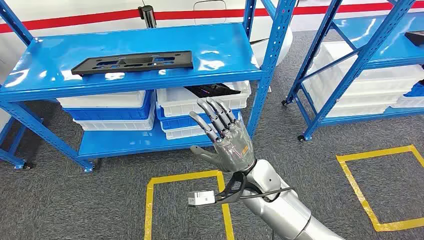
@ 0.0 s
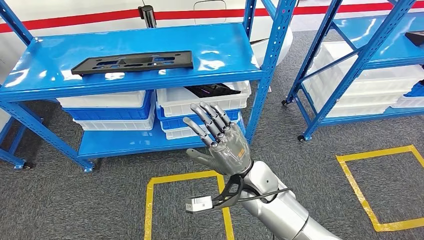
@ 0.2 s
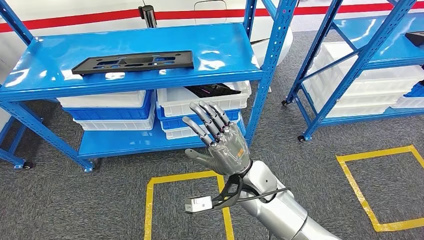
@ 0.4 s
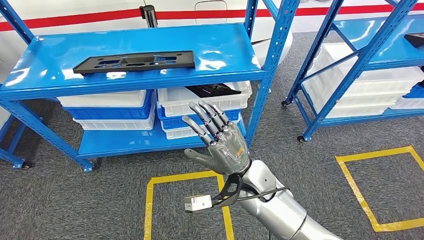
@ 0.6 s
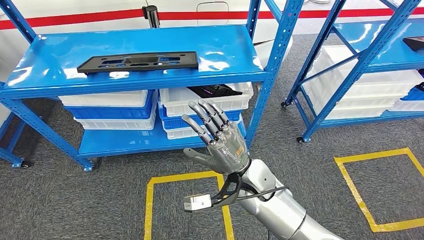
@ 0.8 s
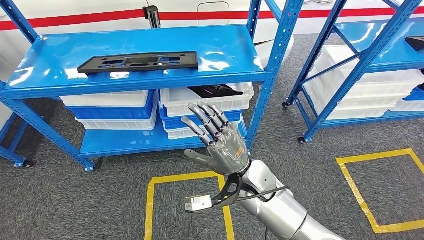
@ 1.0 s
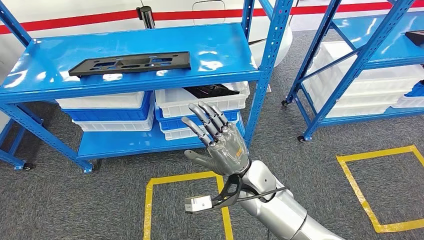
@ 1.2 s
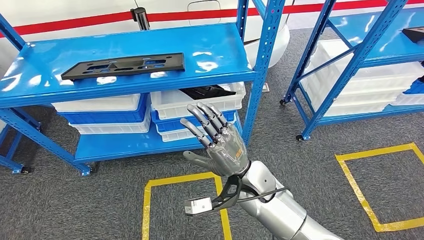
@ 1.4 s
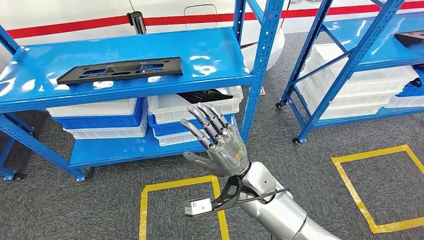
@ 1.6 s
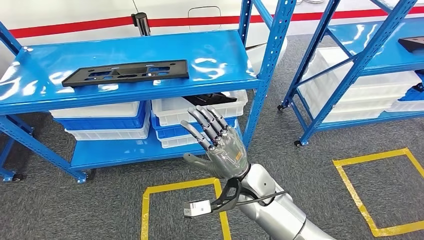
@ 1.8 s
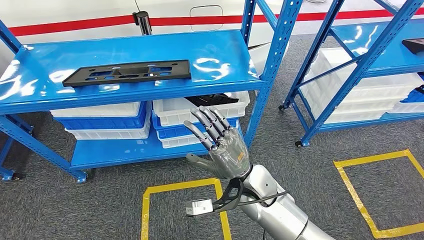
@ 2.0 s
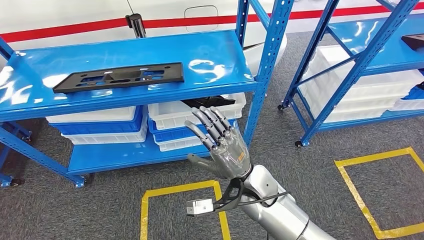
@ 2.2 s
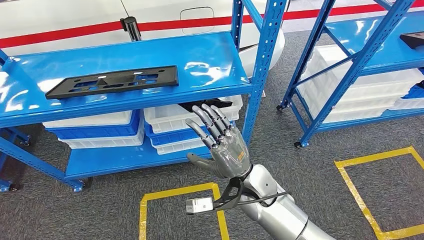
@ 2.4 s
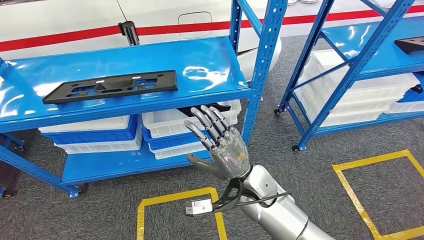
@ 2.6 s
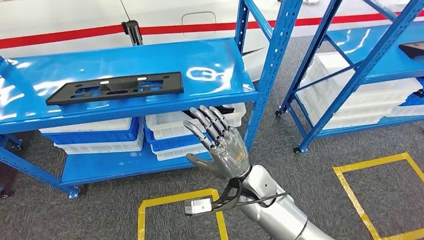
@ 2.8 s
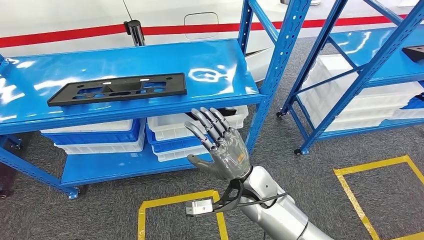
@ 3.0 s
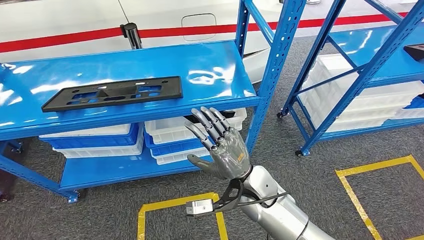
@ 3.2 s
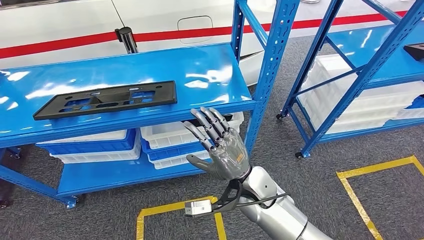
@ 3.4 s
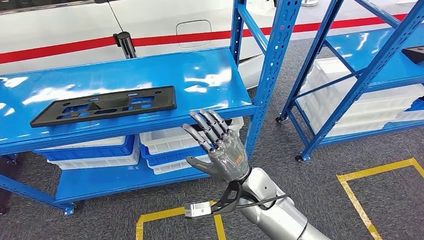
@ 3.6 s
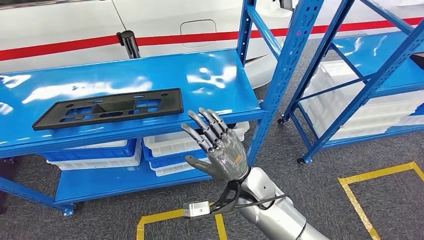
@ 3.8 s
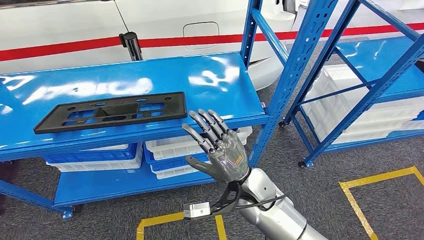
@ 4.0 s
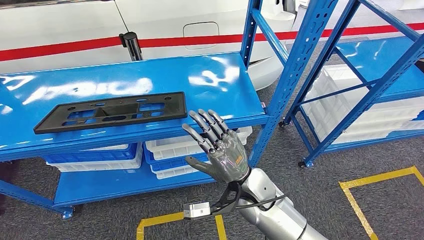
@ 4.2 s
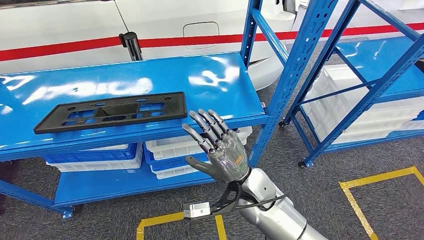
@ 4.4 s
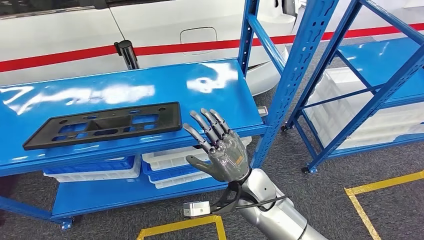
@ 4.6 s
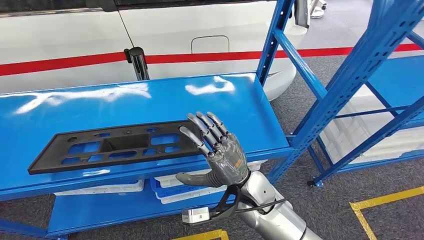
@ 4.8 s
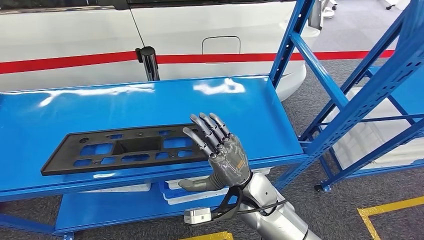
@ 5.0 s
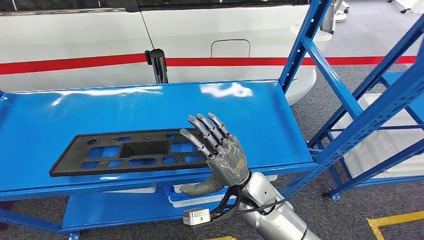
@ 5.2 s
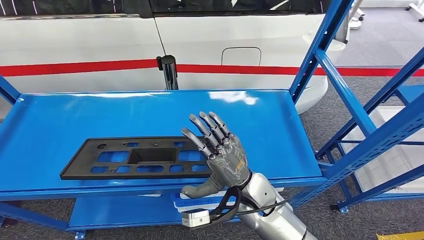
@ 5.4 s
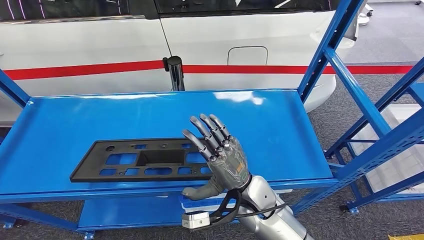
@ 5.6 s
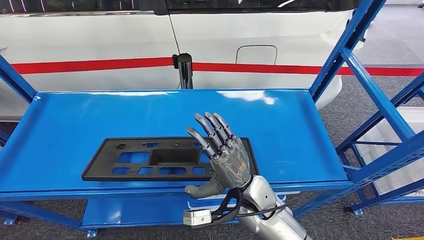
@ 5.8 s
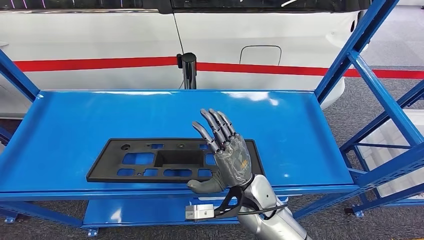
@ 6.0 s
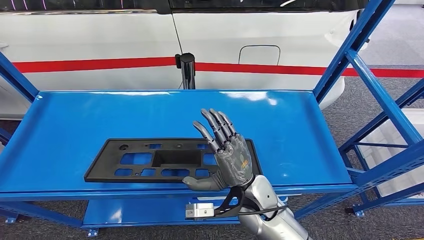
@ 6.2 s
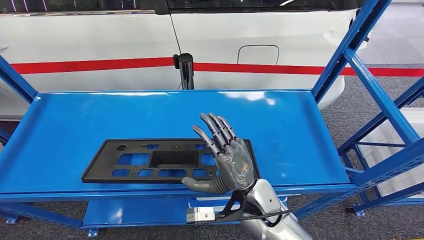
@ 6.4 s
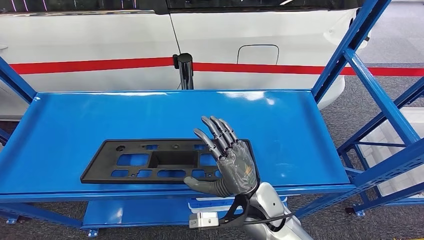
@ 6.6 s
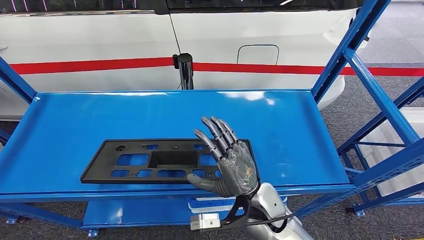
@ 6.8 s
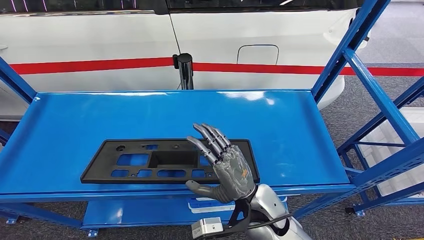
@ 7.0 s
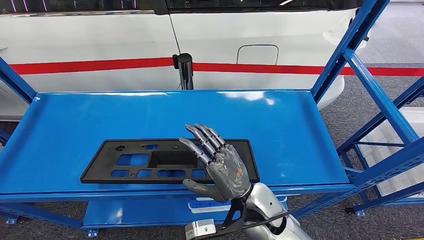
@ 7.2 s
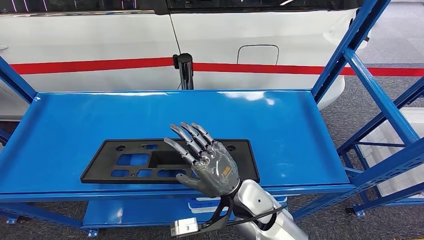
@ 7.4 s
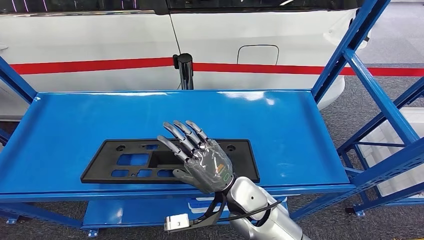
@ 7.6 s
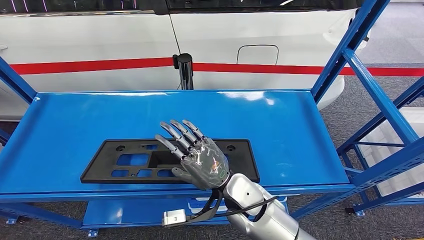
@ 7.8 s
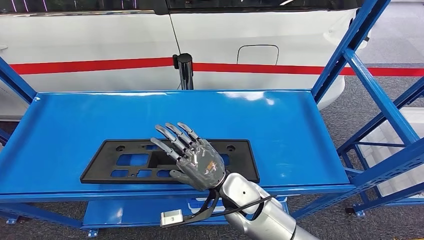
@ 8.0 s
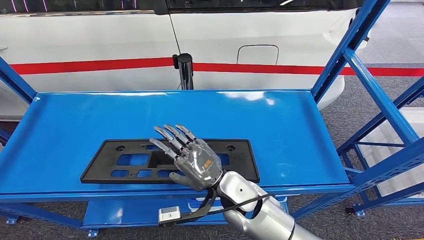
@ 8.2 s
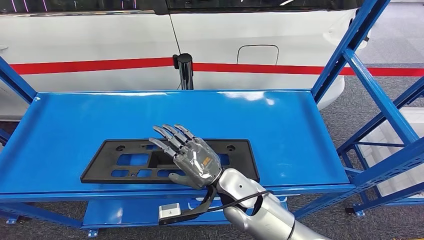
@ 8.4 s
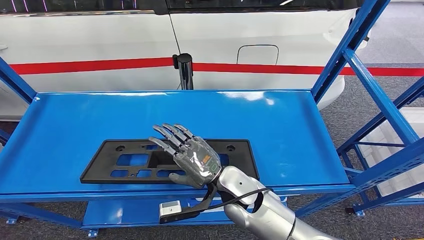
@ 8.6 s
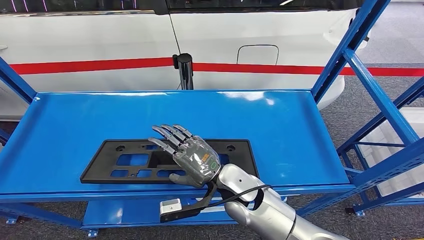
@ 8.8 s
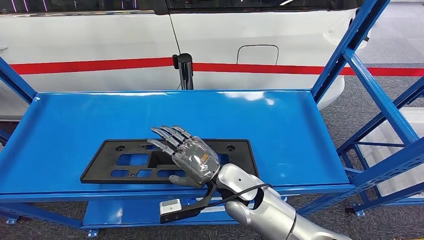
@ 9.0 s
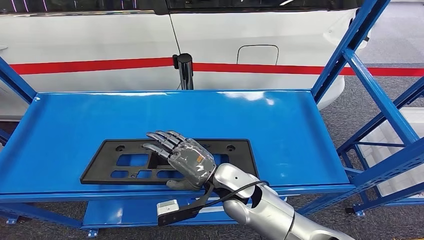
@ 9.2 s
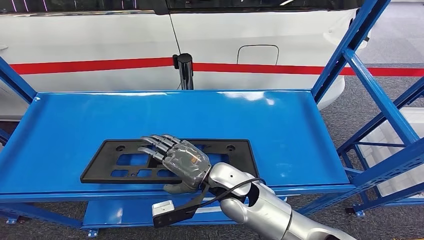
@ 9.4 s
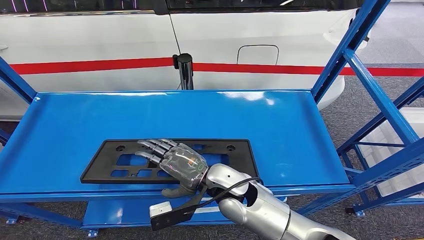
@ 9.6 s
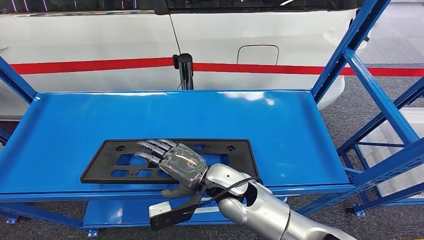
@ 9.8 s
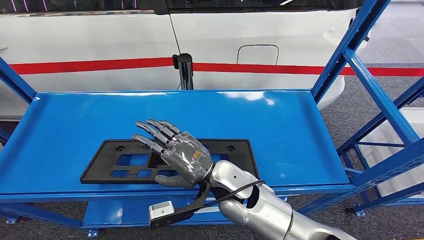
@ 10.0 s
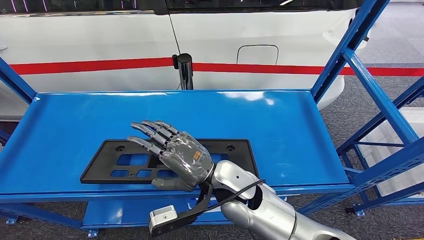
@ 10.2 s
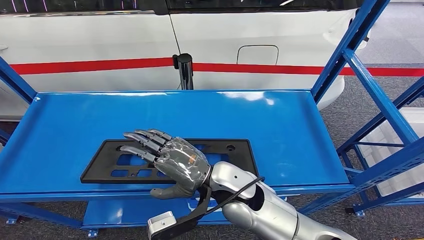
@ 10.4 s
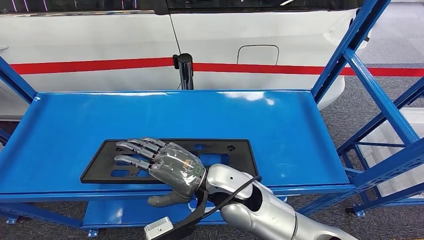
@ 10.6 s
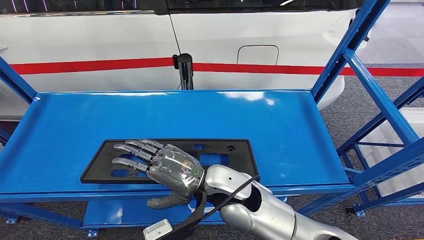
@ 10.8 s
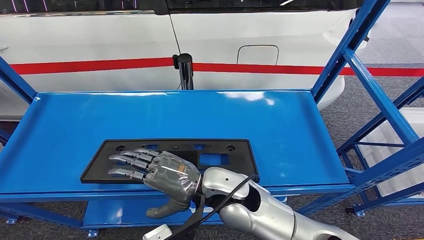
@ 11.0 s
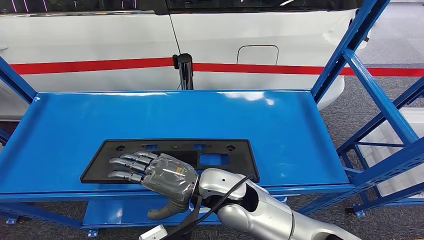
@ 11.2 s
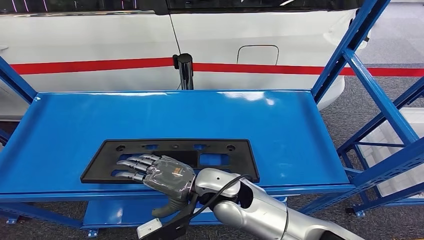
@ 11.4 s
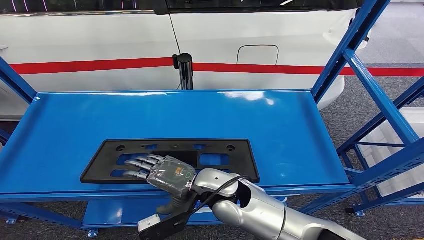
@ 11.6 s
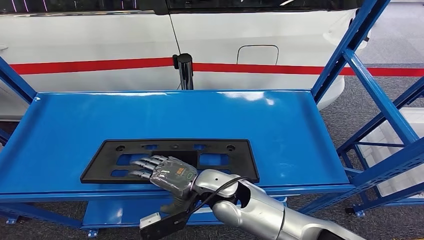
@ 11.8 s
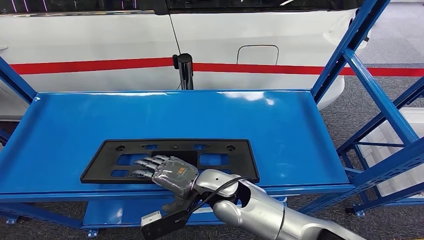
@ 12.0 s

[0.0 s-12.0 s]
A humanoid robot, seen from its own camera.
7.6 to 9.0 s: The hands move only a little.
9.0 to 10.4 s: The right hand shifts some 5 cm upward.
10.4 to 12.0 s: The right hand heads downward, covering some 5 cm.

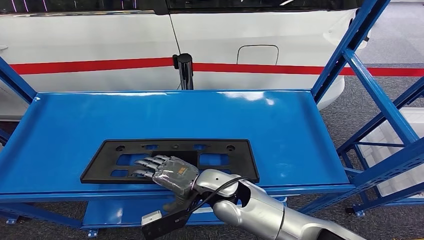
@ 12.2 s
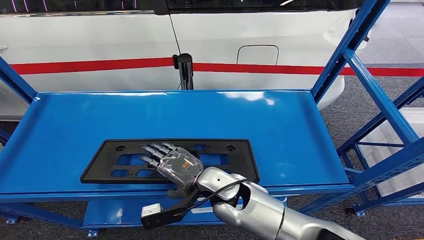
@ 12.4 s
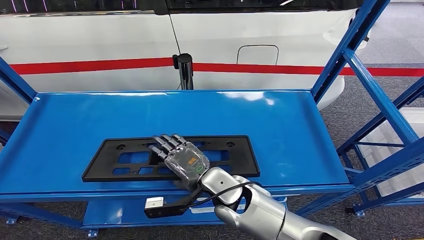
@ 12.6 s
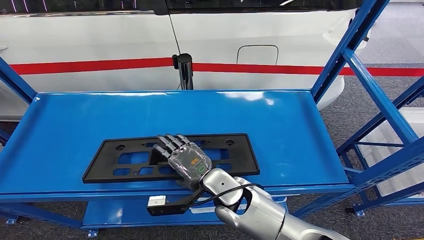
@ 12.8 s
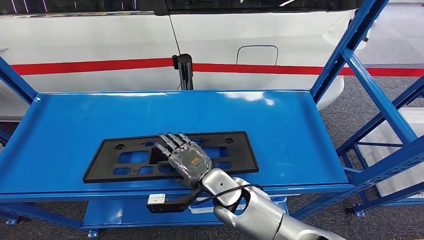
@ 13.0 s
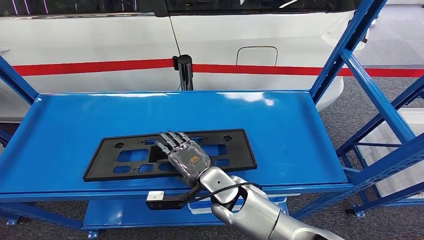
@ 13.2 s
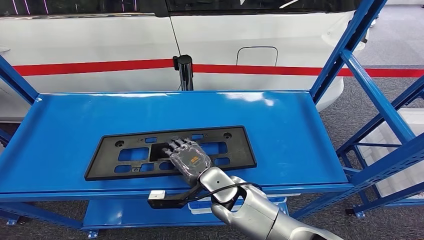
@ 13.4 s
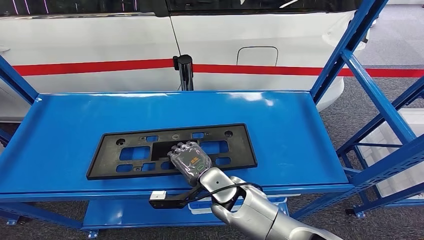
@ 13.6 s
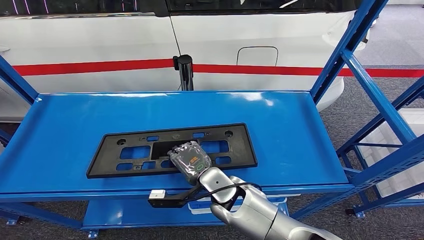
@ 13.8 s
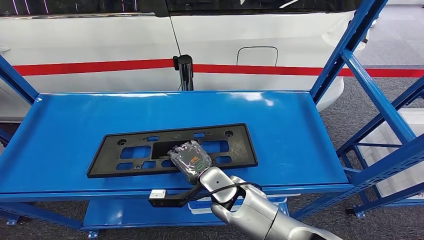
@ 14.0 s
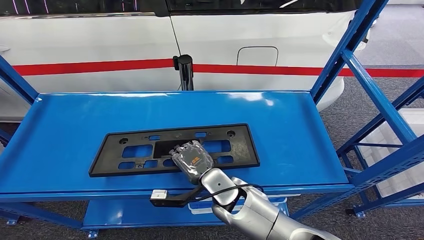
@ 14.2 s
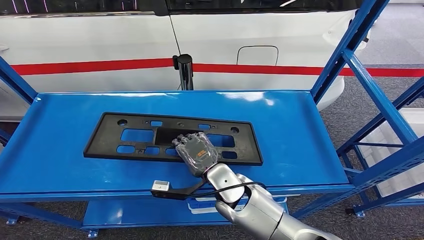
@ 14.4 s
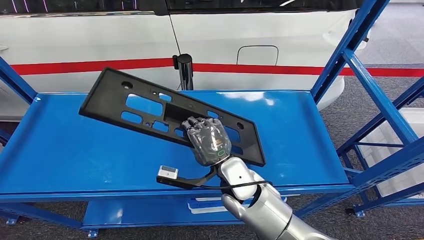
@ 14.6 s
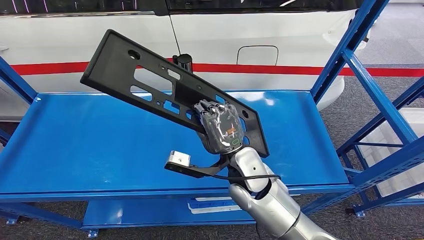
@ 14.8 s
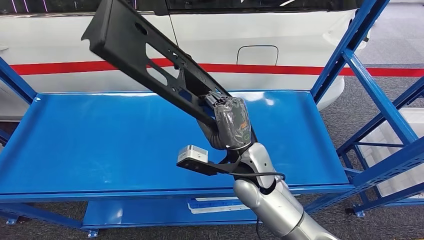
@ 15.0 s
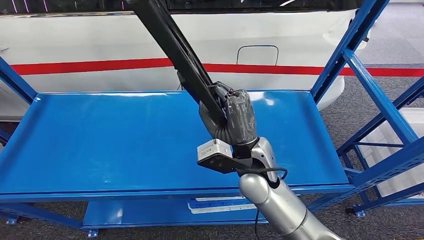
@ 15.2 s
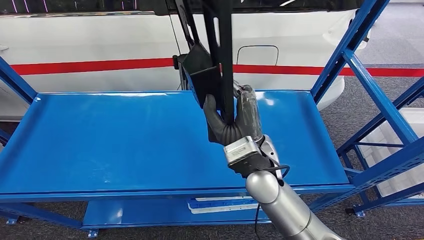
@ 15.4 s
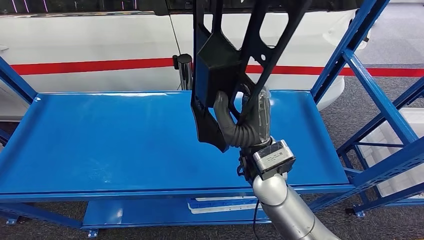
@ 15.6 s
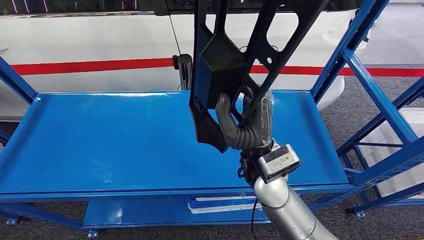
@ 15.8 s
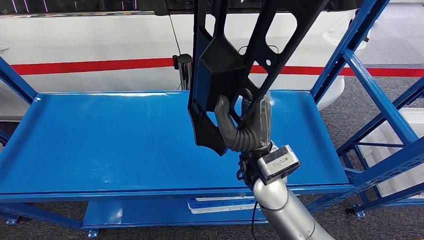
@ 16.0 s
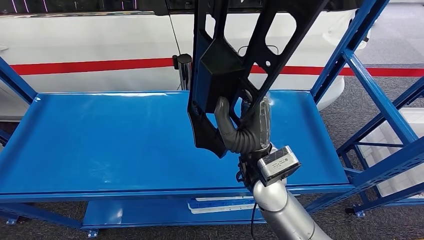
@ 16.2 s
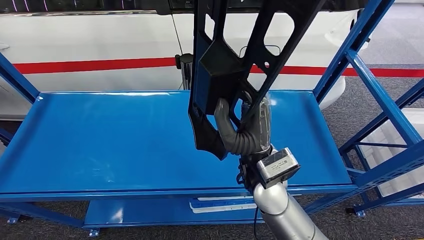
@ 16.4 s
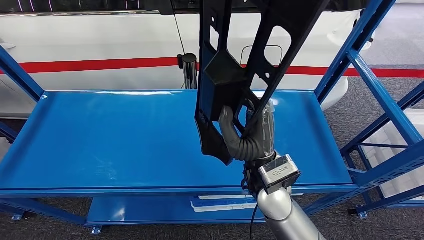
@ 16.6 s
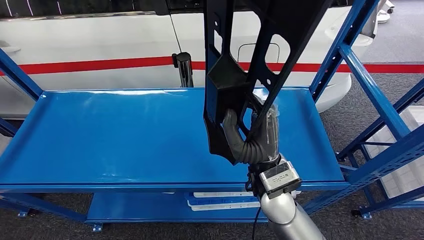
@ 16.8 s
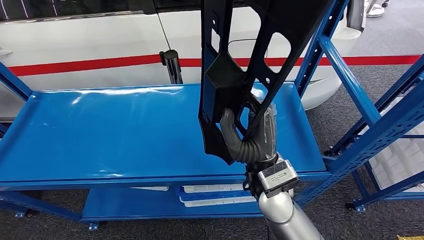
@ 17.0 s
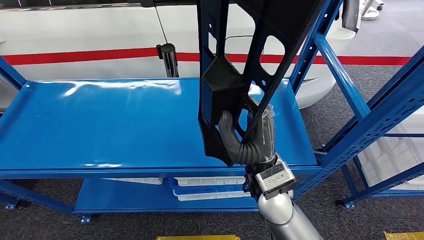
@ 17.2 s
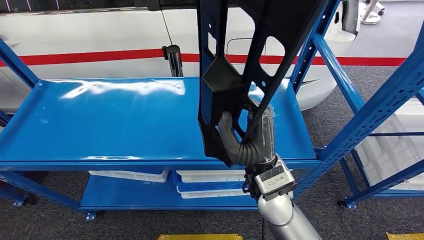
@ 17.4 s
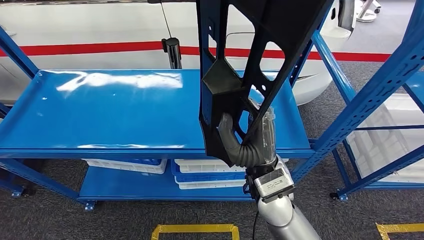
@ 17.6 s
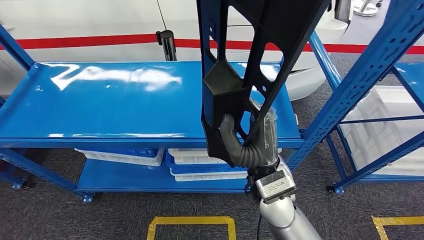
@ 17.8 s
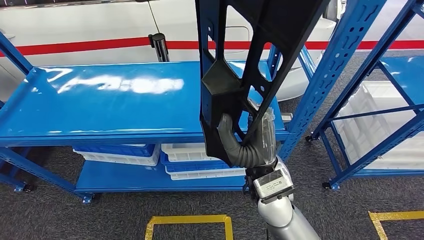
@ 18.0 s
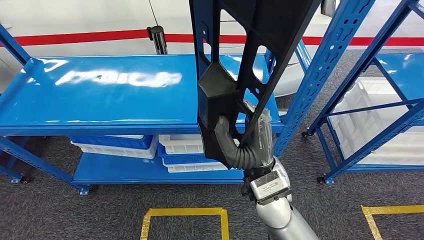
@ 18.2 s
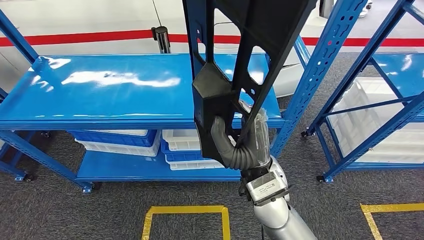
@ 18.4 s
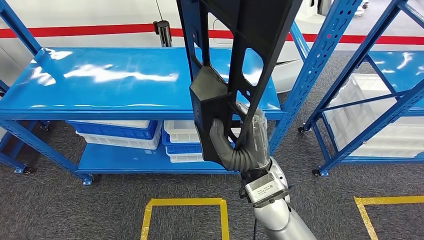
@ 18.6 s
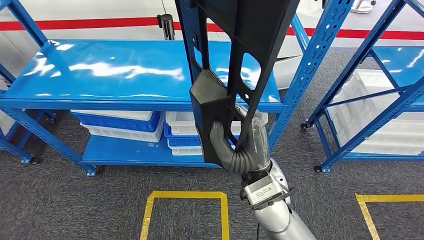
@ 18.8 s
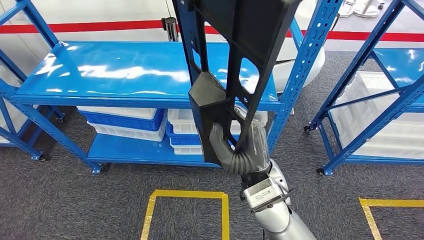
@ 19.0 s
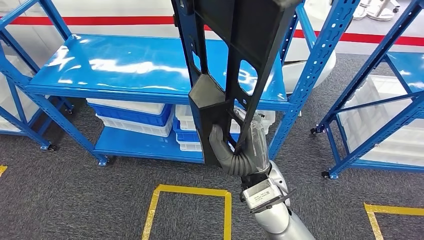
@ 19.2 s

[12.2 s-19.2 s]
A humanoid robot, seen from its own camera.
Step, 12.2 to 18.6 s: Pick up the large material from the shelf.
